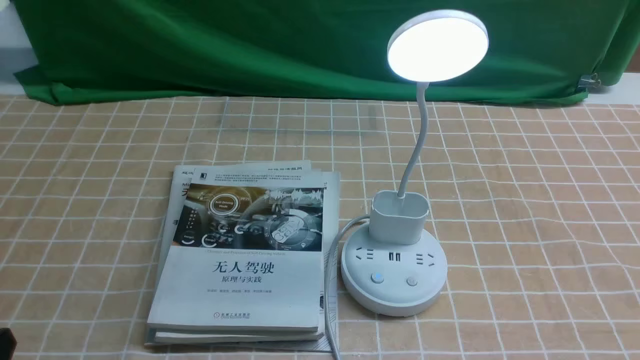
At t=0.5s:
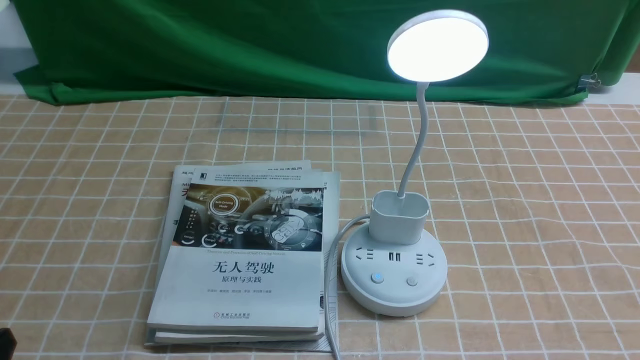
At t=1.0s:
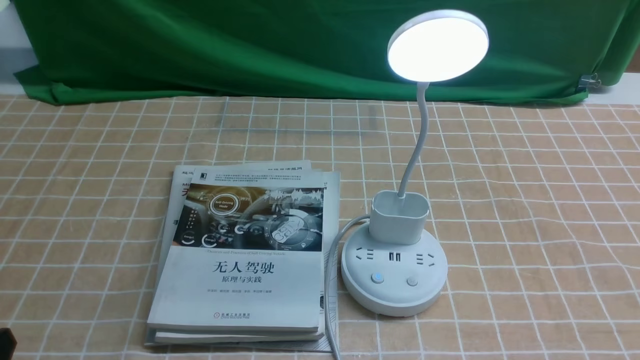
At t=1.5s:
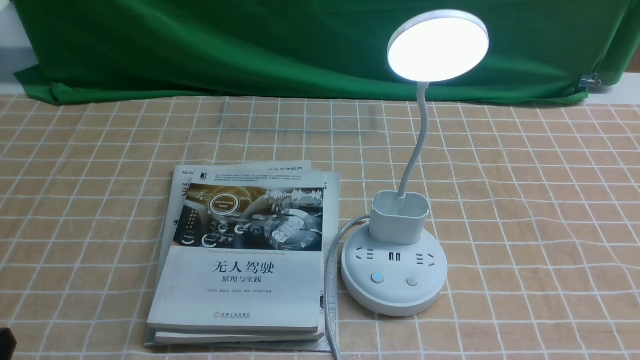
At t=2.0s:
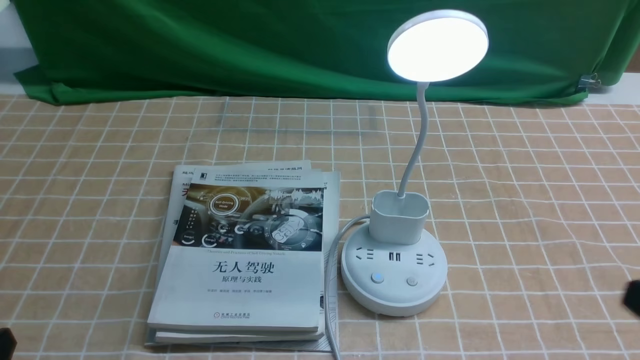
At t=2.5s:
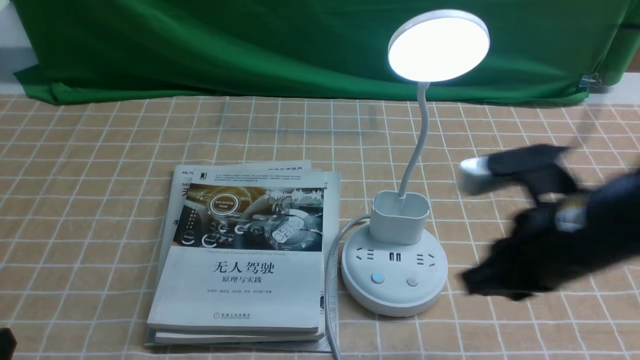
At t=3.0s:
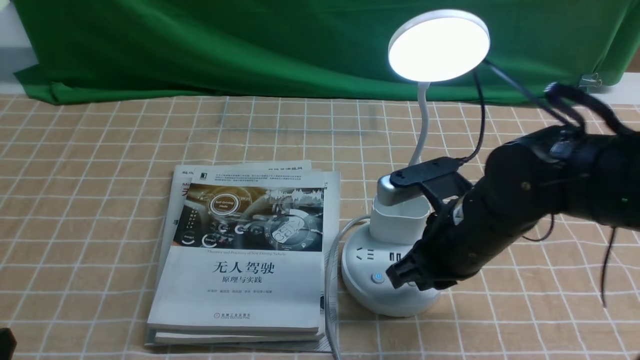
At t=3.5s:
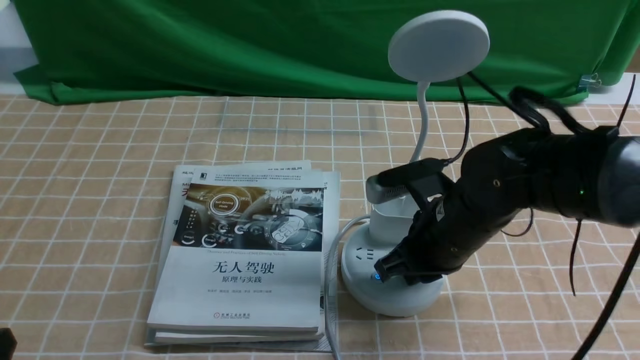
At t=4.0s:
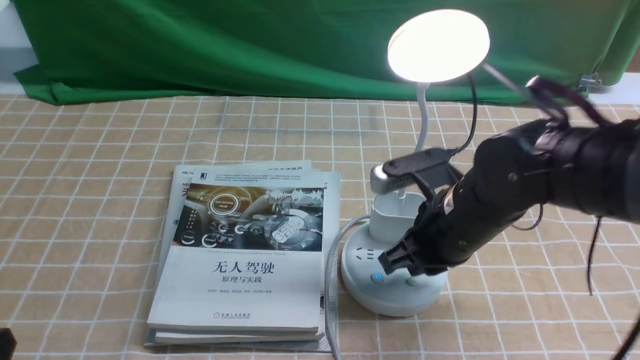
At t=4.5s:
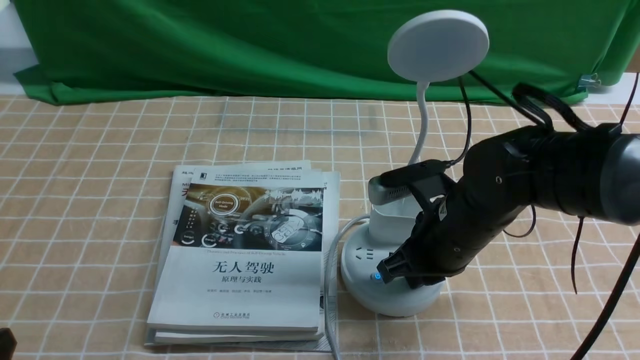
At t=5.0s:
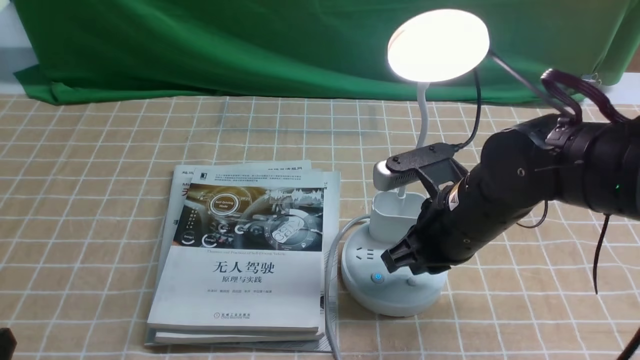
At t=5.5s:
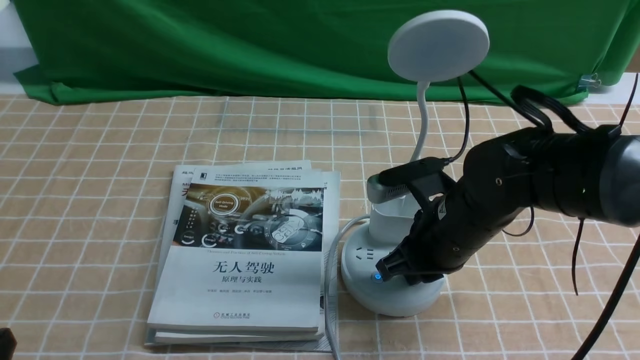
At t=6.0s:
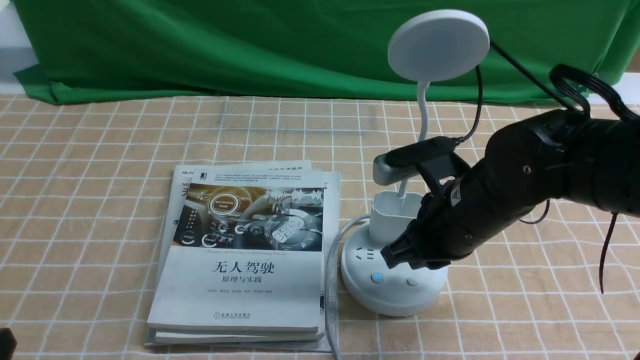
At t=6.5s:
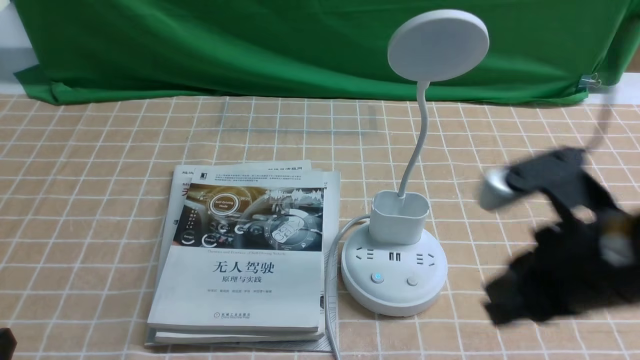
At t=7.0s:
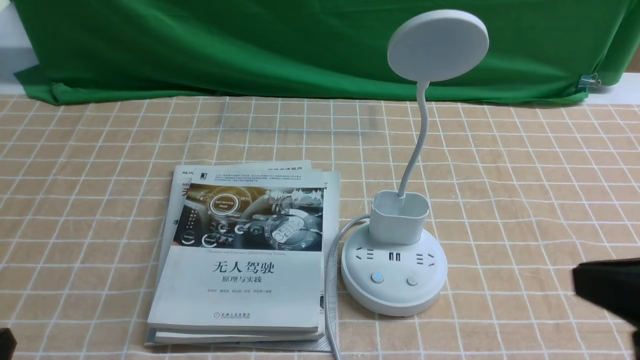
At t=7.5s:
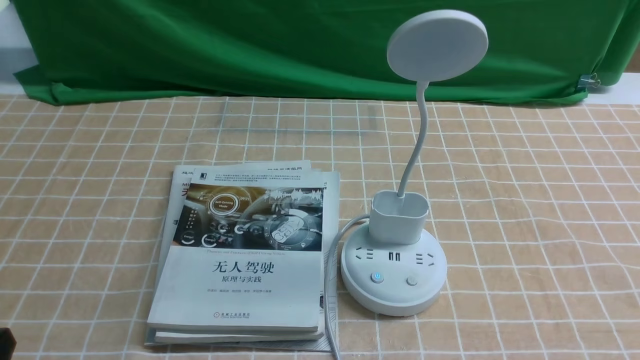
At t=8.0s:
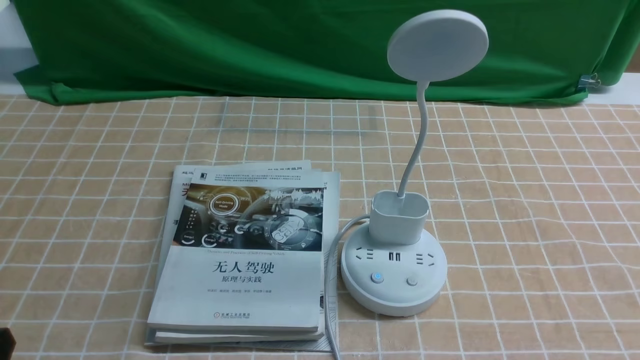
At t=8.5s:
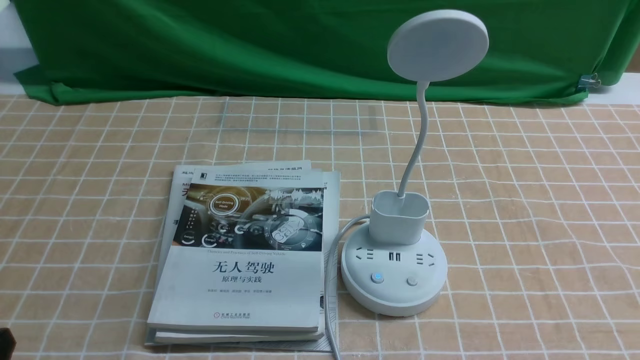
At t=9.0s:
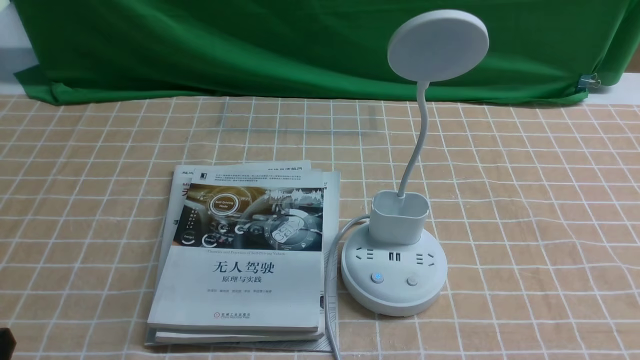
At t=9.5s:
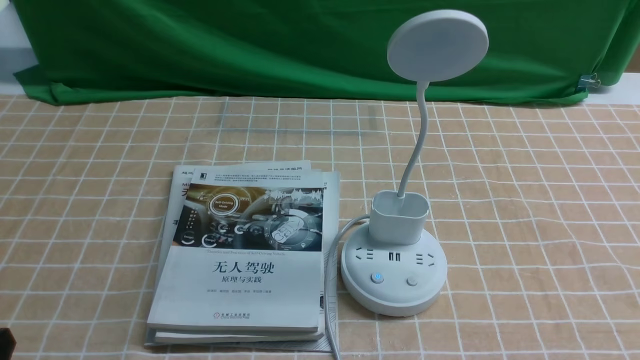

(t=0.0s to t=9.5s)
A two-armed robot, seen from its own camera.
Task of the whole recording: turn off the desk lamp on the light coffee tablecloth by hand.
Step, t=0.0s - t=5.5s: use the right arm to press the button switch on the lamp holder.
t=2.0s - t=4.0s: The right gripper goes roughly 25 cm forward and to the left.
t=5.5s - t=7.5s: The right gripper is displaced backward and to the right by approximately 30 cm.

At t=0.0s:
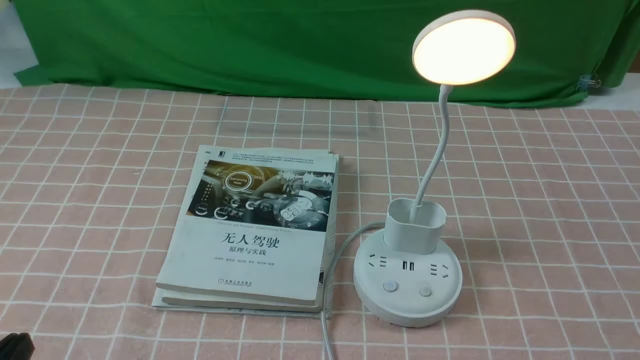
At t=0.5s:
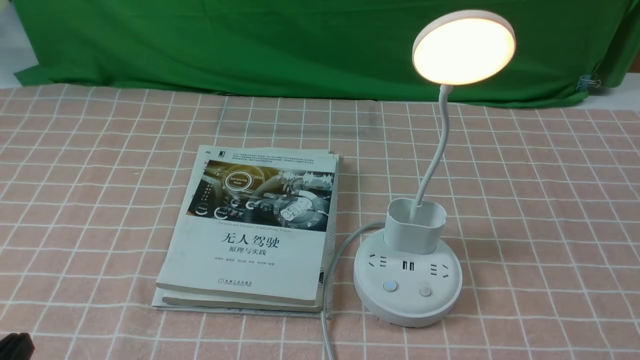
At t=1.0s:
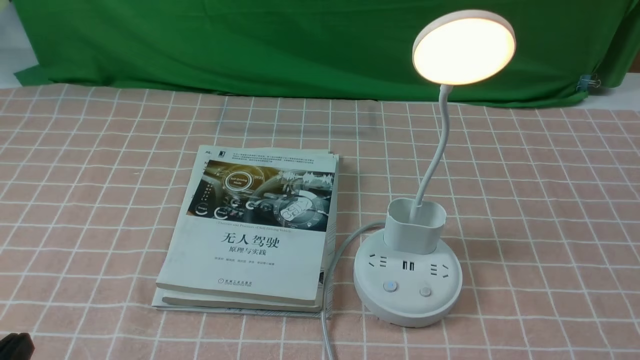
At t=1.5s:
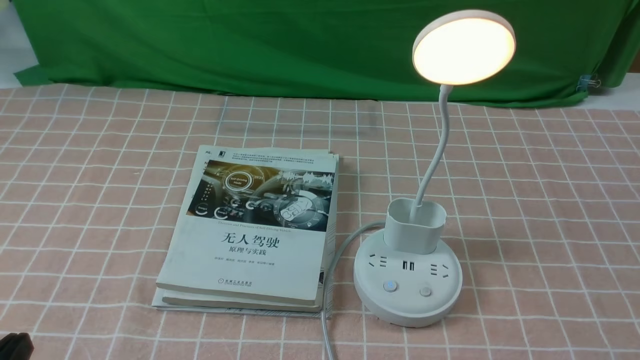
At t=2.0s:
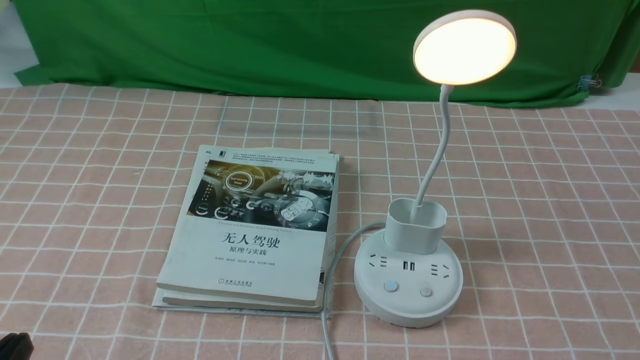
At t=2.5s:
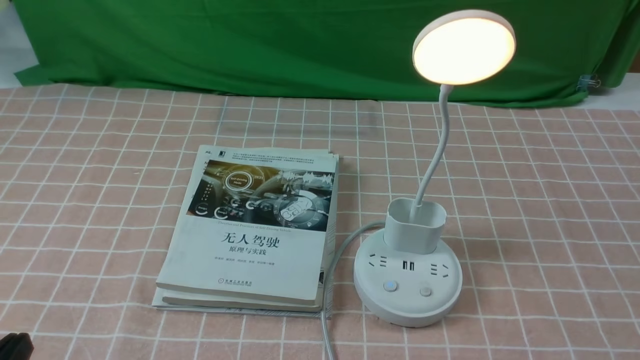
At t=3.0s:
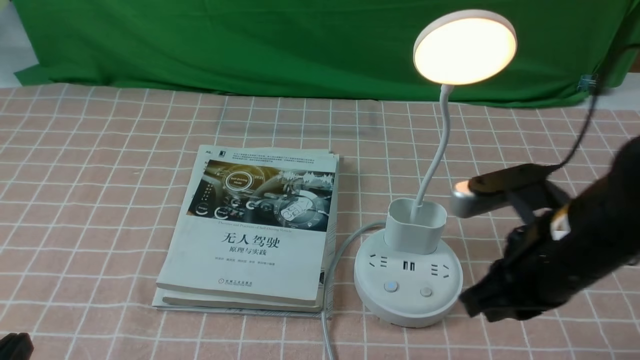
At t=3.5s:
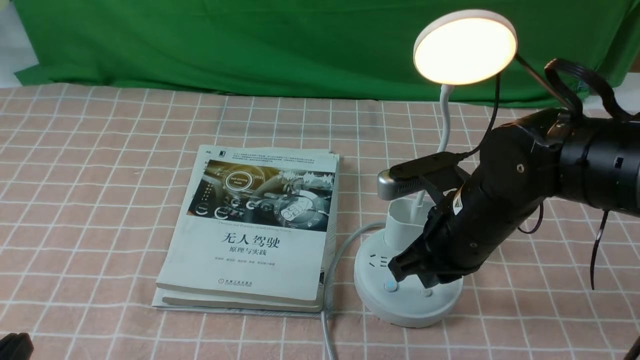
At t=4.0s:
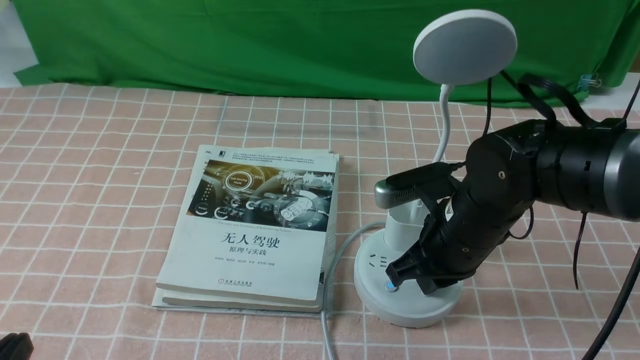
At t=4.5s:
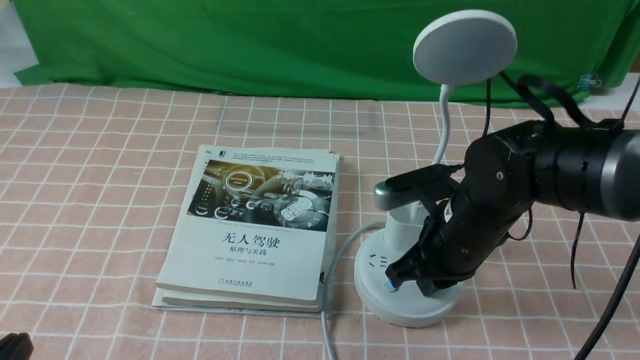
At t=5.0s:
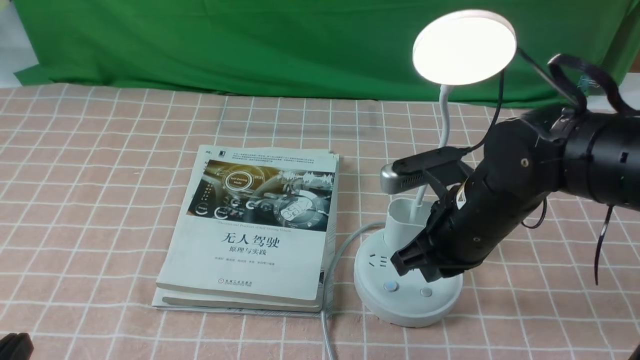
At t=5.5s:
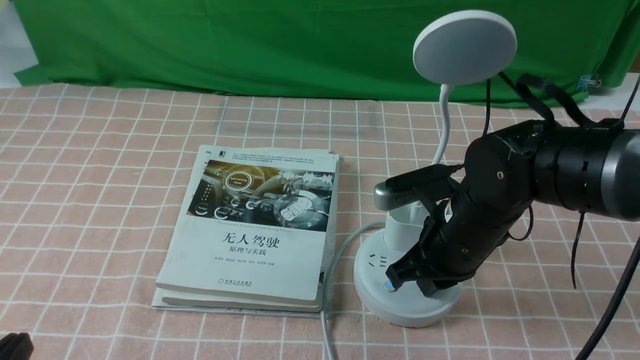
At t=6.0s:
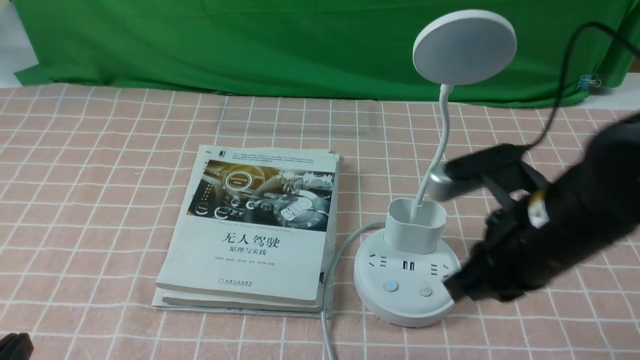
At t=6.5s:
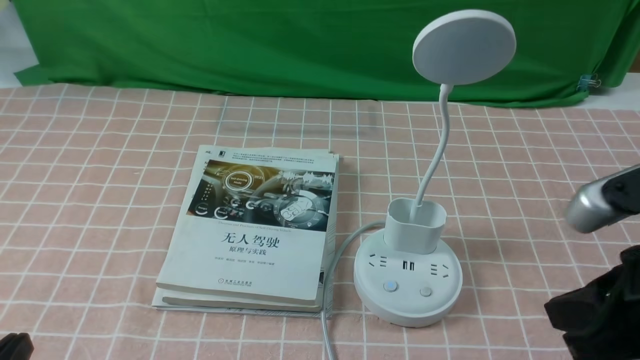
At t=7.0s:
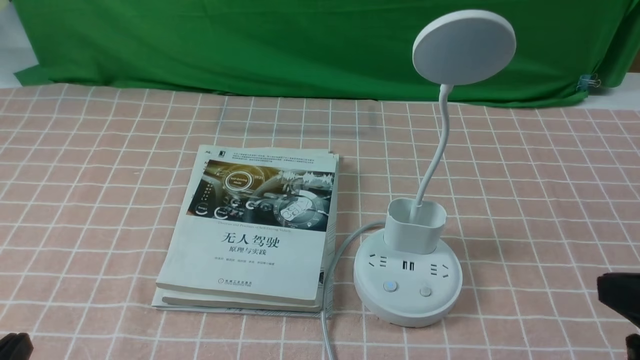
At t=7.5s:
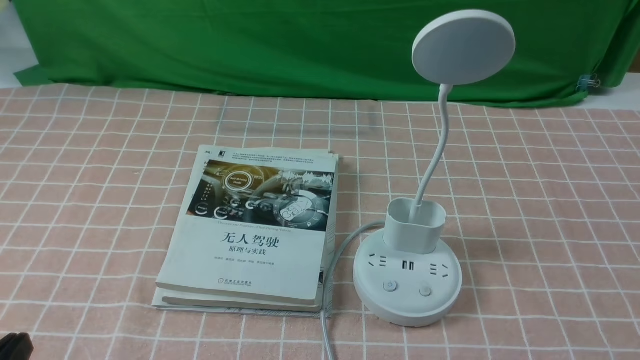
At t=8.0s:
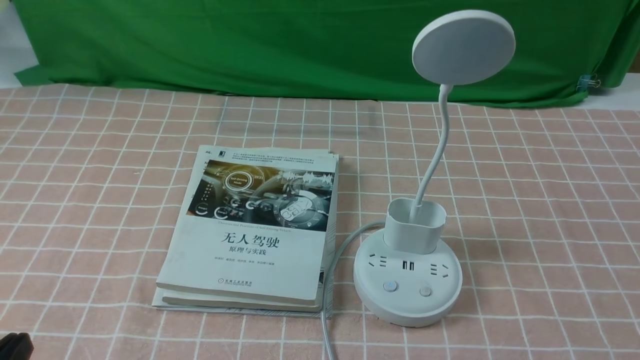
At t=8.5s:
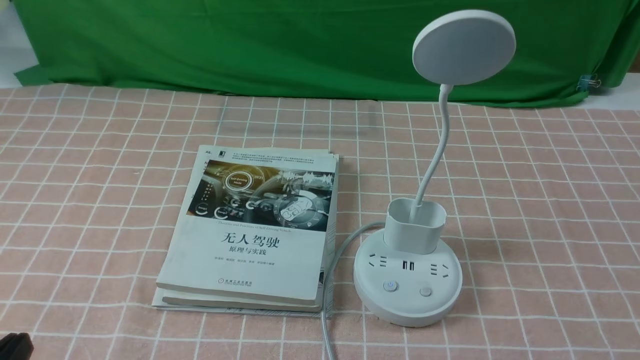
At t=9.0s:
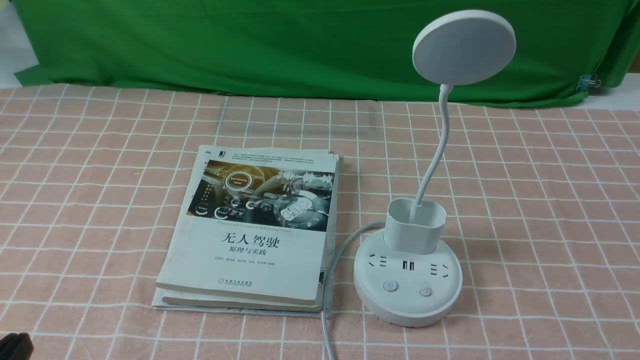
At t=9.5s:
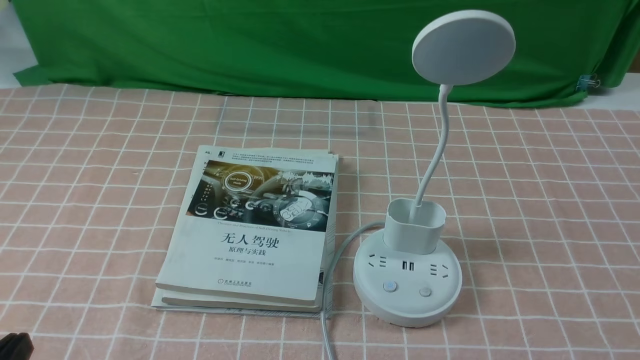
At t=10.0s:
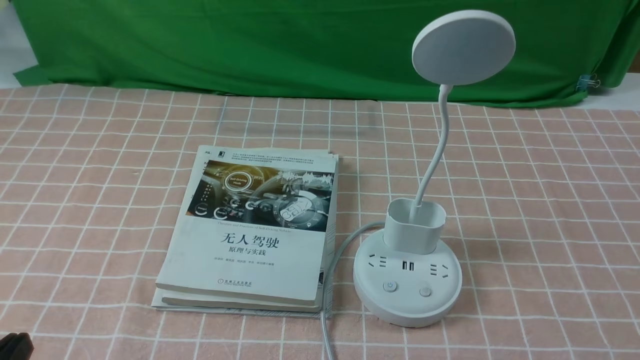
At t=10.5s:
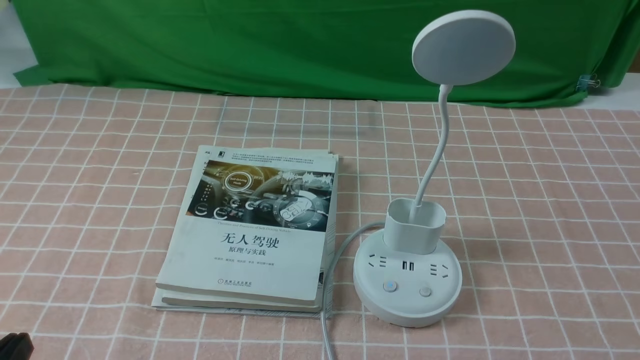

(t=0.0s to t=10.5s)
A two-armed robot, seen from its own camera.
Task of the whole recording: turn off the table lamp on the pink coffee tablecloth by hand.
Step, t=0.0s - t=5.5s: use the right arm to press the button switch on the lamp holder.
t=2.0s - t=4.0s: The right gripper moves forward and to the left, some 30 cm, and closes.
t=4.0s - t=6.5s: The right gripper is displaced backward, upward and to the right by approximately 20 cm.
t=6.5s - t=8.5s: The right gripper travels downward, to the right and backward by roughly 20 cm.
